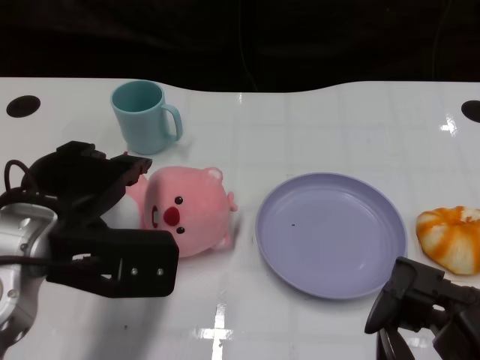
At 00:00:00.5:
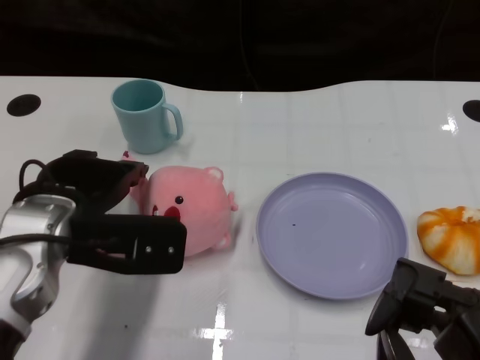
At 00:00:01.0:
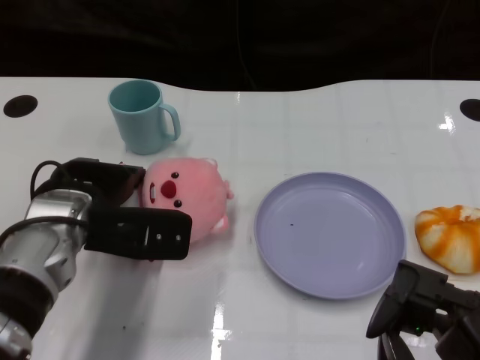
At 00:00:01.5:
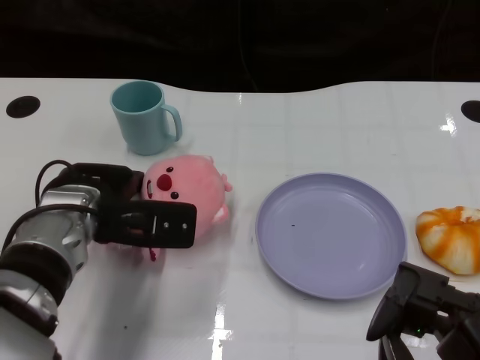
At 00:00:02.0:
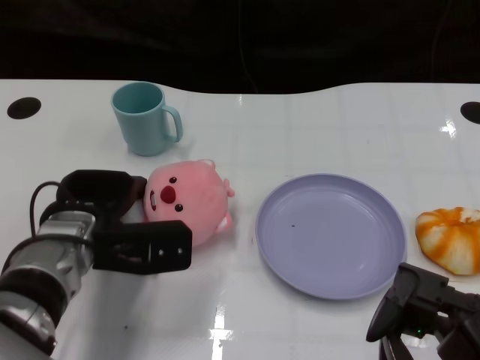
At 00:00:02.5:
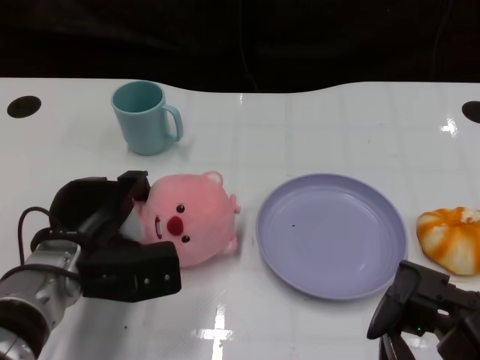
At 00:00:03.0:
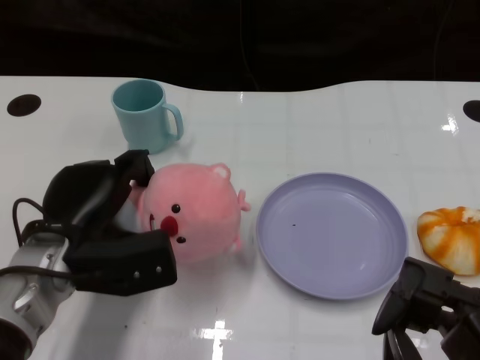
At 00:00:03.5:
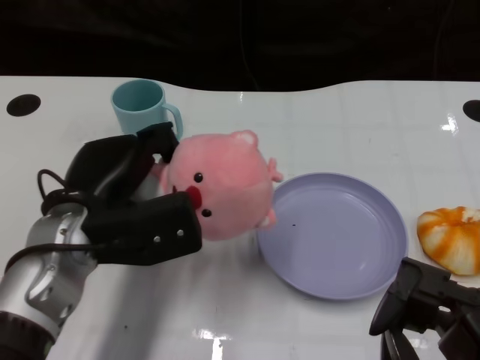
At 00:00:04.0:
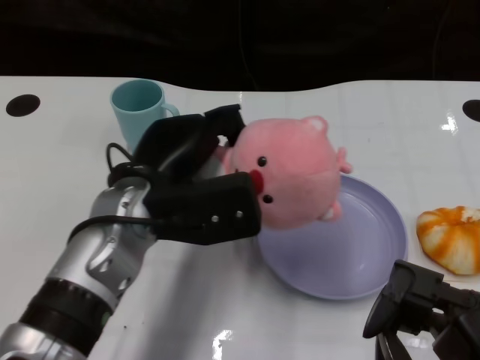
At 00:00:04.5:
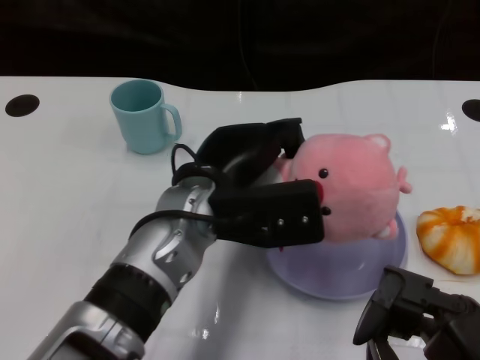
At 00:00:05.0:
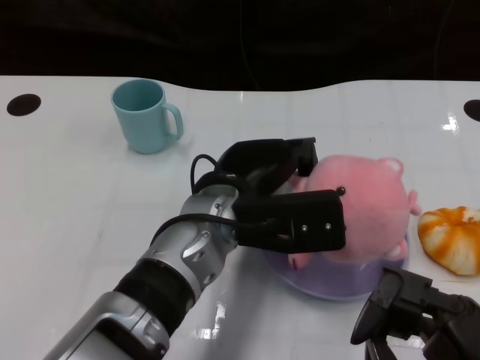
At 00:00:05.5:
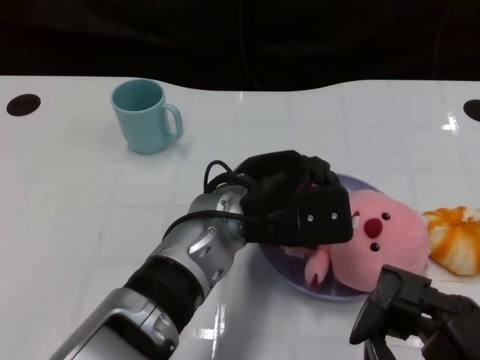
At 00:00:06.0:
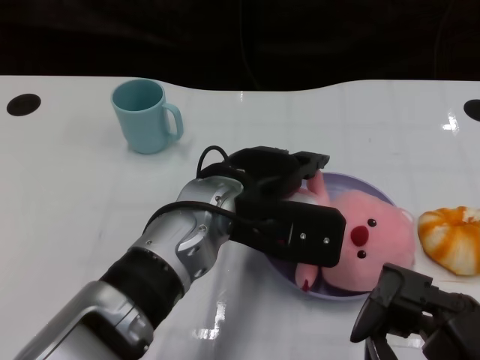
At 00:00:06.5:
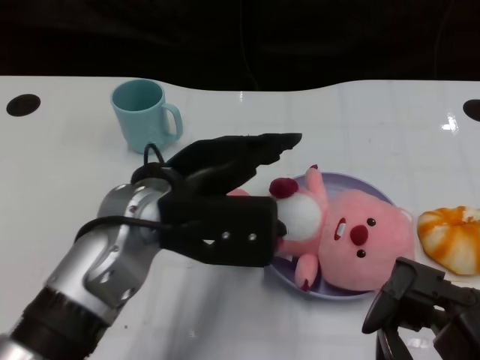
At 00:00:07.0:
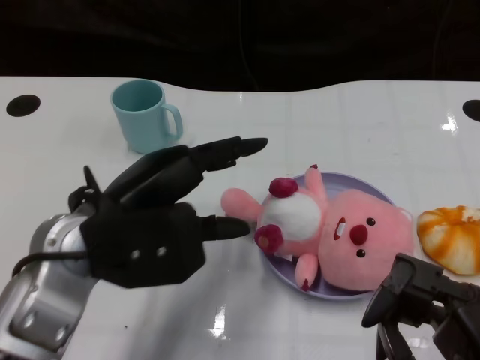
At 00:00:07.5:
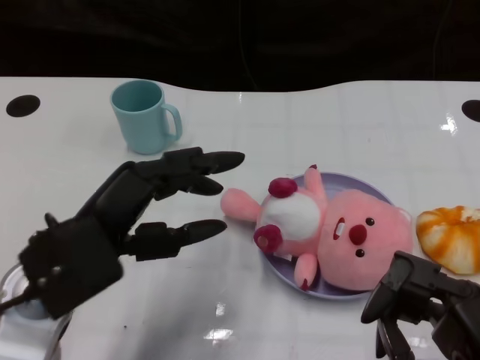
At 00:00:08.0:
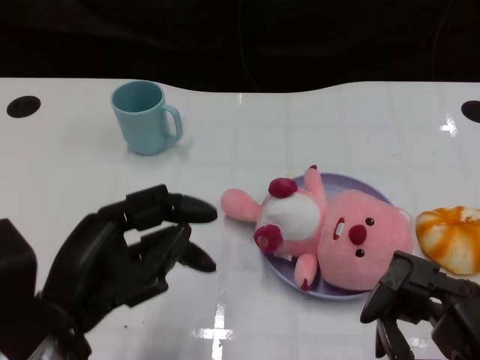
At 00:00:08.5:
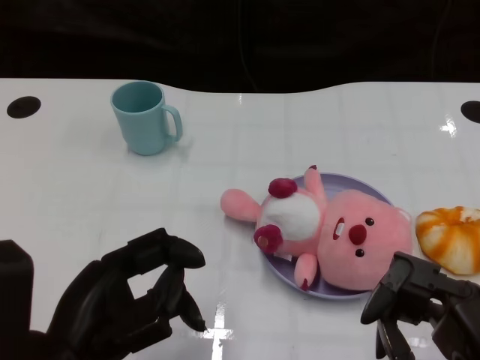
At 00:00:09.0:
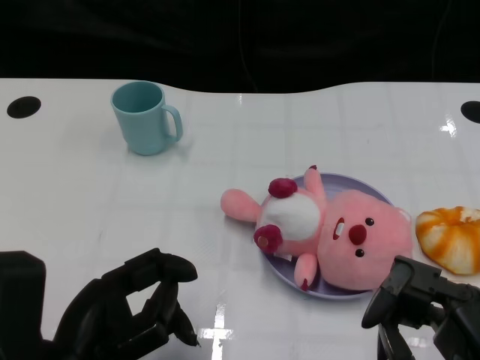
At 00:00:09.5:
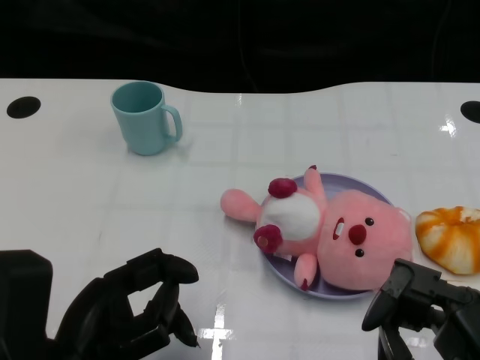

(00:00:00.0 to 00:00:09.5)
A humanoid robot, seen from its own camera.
Task of the whole recording: Pick up the doll on one side of the plate and place it into the plate.
Step, 00:00:00.0 - 00:00:03.0: Grasp the pink doll with the left gripper.
Step, 00:00:03.5 - 00:00:06.0: Place the pink doll into the plate with the left gripper.
00:00:00.0 - 00:00:02.0: The left hand shifts approximately 10 cm downward and forward.
00:00:02.0 - 00:00:04.0: The left hand goes some 10 cm upward and to the right.
00:00:04.0 - 00:00:05.5: The left hand travels to the right by about 10 cm.
00:00:05.5 - 00:00:07.5: The left hand moves to the left and backward, roughly 20 cm.
00:00:07.5 - 00:00:09.5: The left hand shifts some 5 cm backward.
